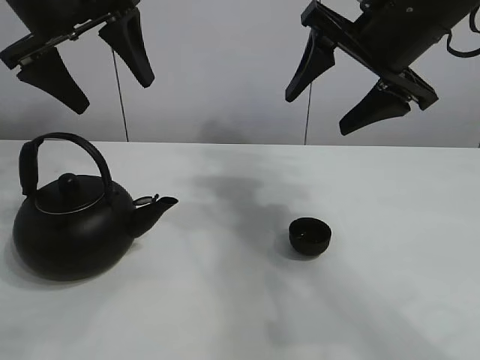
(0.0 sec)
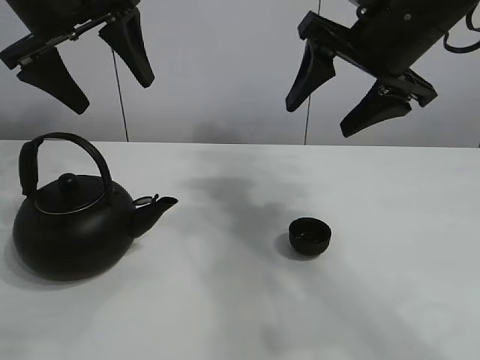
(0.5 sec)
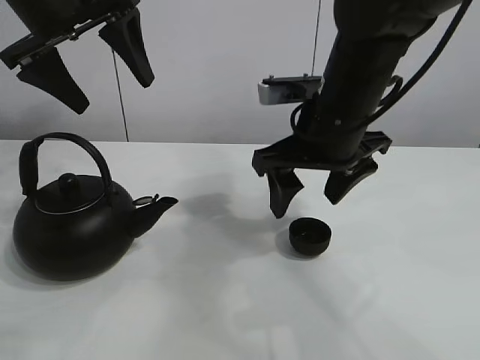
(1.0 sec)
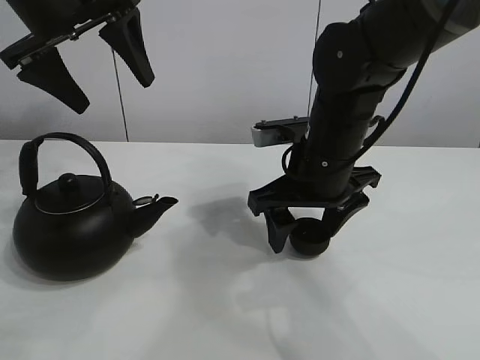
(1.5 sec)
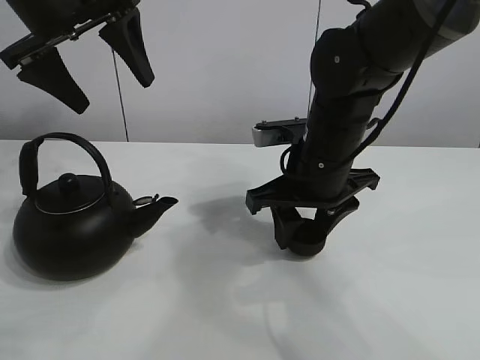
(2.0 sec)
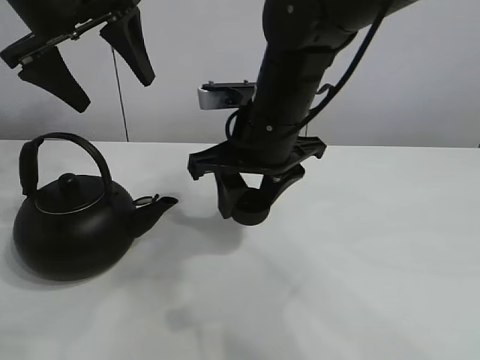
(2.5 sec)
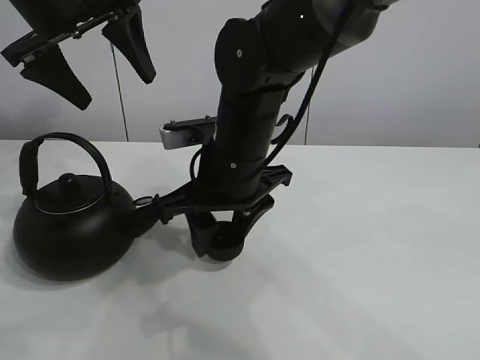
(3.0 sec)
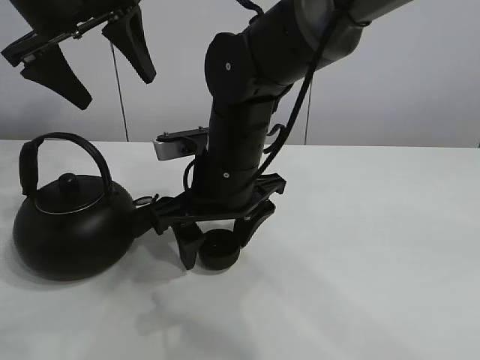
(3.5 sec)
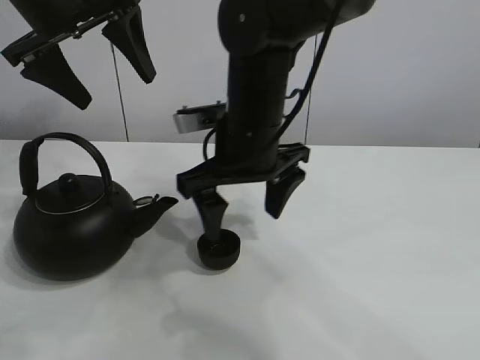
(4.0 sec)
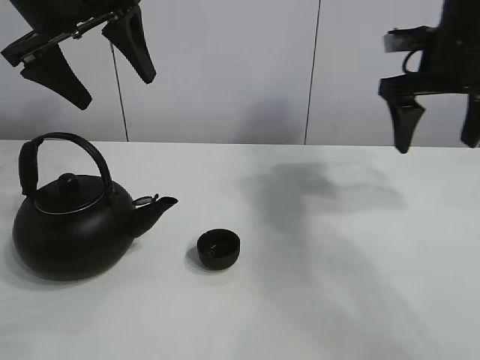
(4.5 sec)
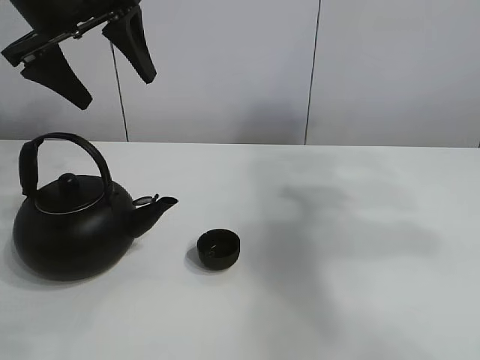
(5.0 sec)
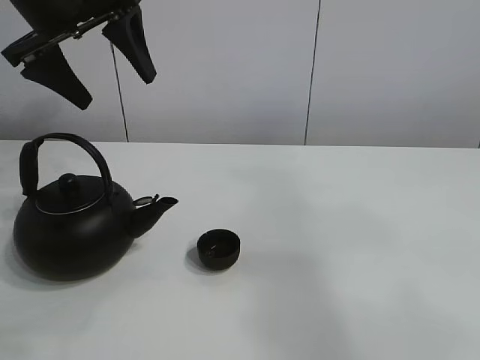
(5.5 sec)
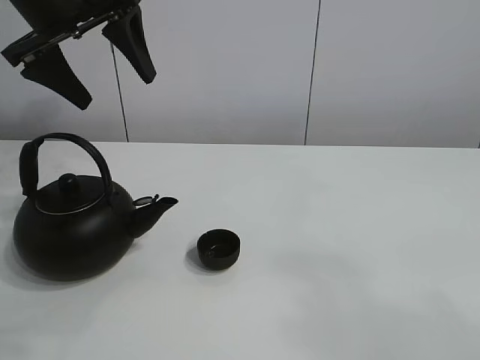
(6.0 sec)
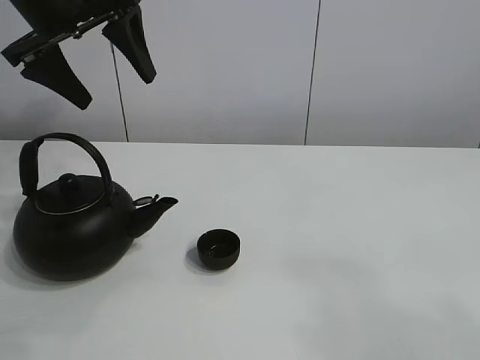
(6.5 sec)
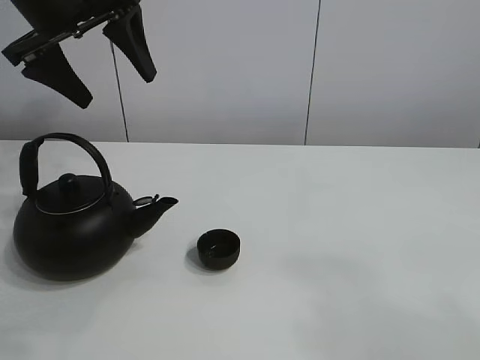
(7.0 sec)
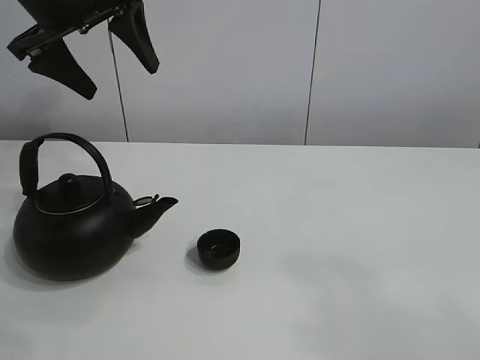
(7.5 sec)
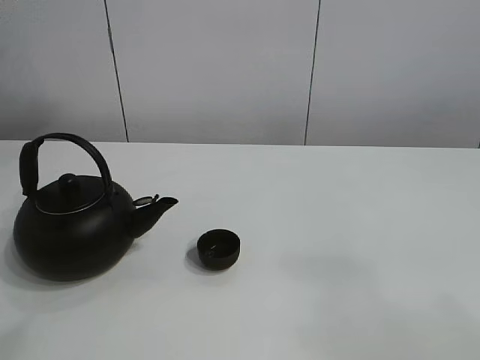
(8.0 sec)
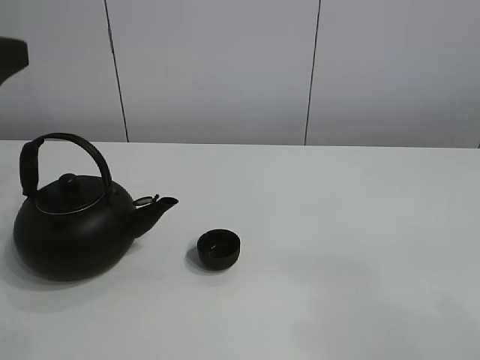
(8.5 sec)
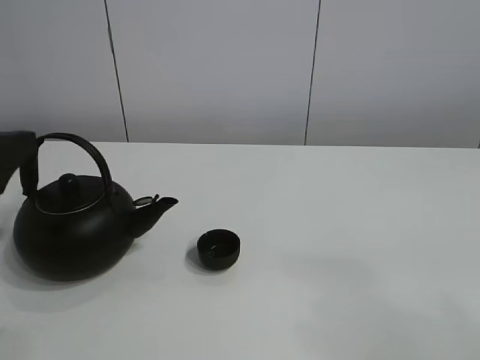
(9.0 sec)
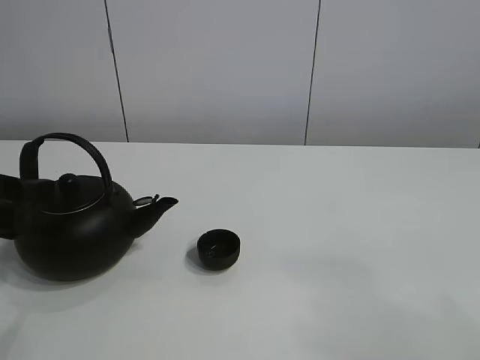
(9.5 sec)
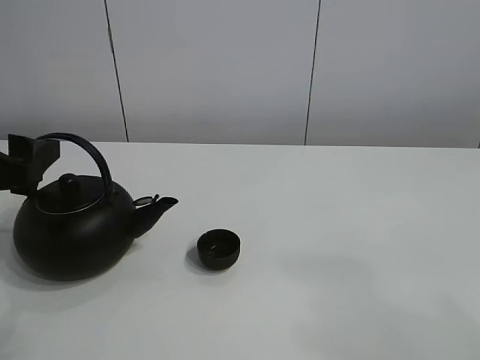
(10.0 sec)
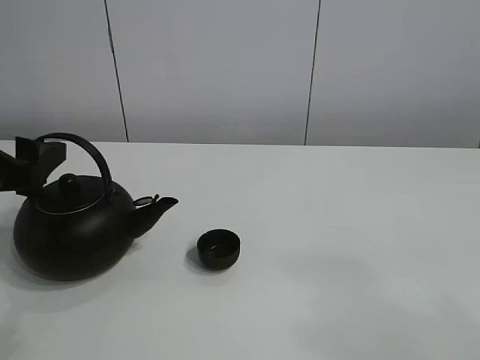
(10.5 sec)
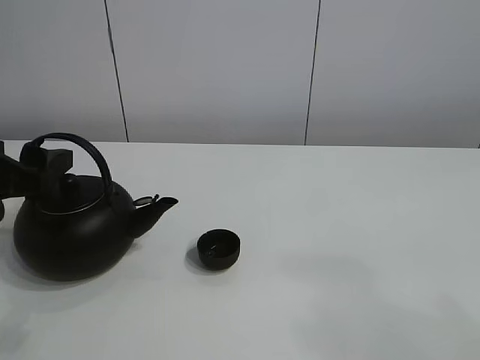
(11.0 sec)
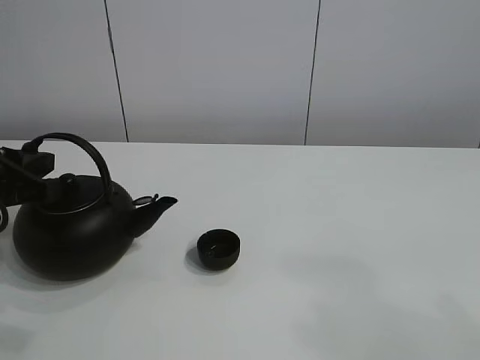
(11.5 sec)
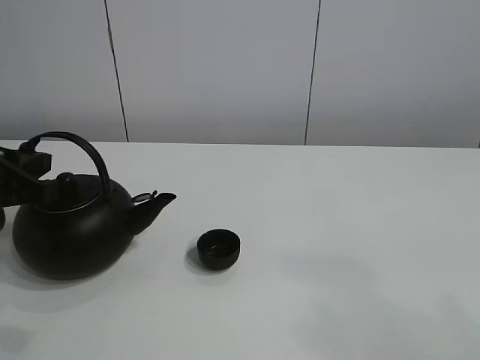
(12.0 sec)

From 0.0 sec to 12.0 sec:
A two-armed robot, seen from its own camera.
Task of the whole recording: pour tea into the teacup.
Step, from 0.0 sec to 2.0 sec: Pick up the teacup with the right gripper.
Step, from 2.5 sec to 3.5 sec: Place the teacup in the center of view with the right gripper.
From 2.0 sec to 4.0 sec: The right gripper goes about 5 cm to the left, and opens.
From 4.0 sec to 6.0 sec: The right gripper shifts approximately 50 cm backward and to the right.
From 6.0 sec to 8.0 sec: The left gripper travels upward and backward by some 10 cm.
From 8.0 sec to 10.0 sec: The left gripper heads downward, covering approximately 25 cm.
From 10.0 sec to 12.0 sec: The left gripper closes its fingers.

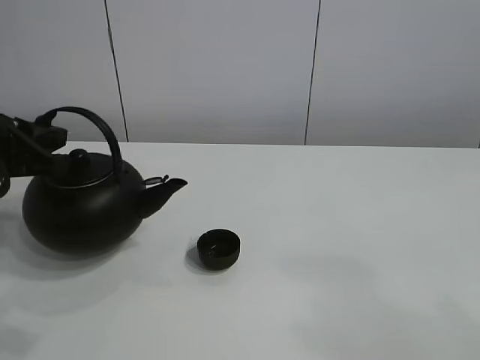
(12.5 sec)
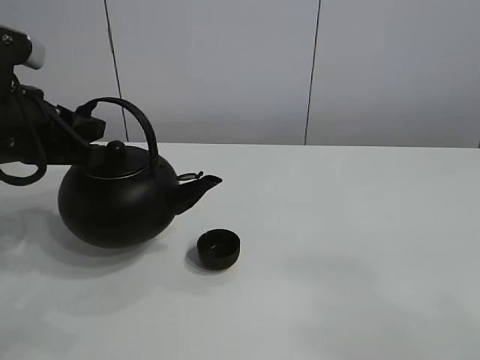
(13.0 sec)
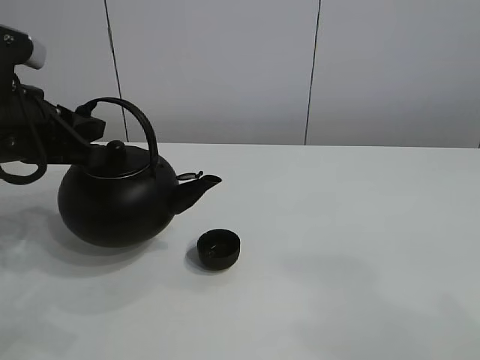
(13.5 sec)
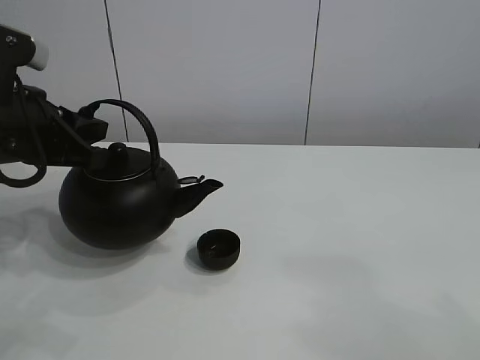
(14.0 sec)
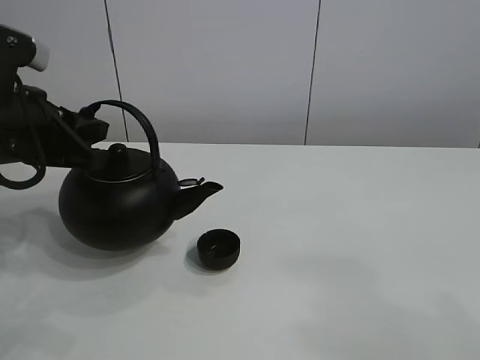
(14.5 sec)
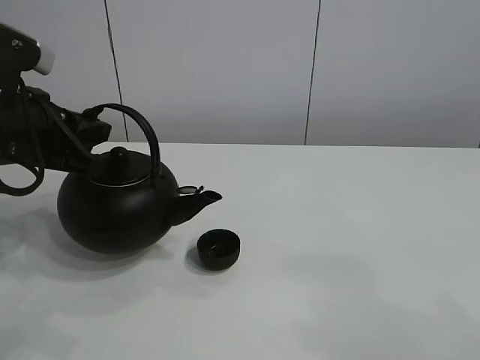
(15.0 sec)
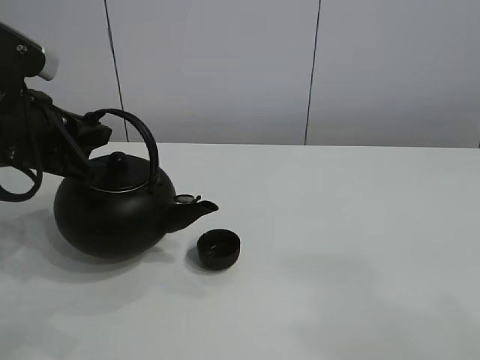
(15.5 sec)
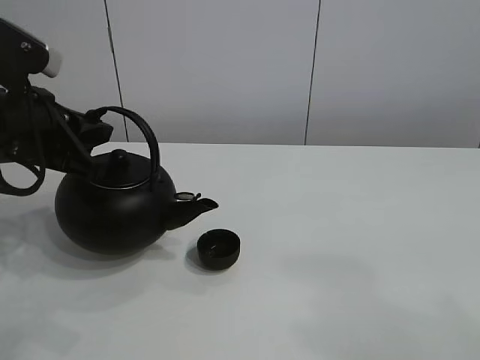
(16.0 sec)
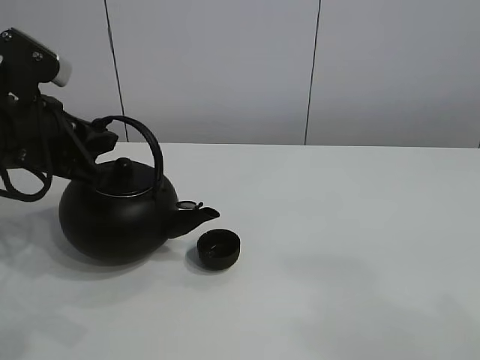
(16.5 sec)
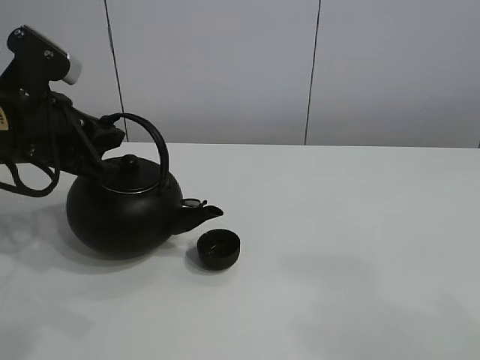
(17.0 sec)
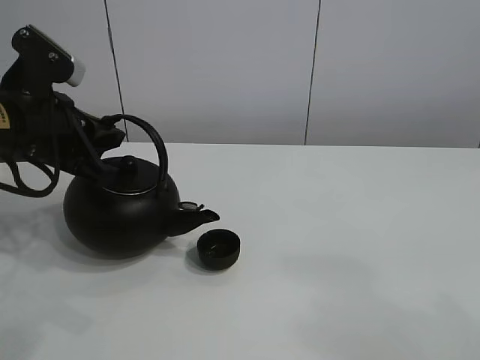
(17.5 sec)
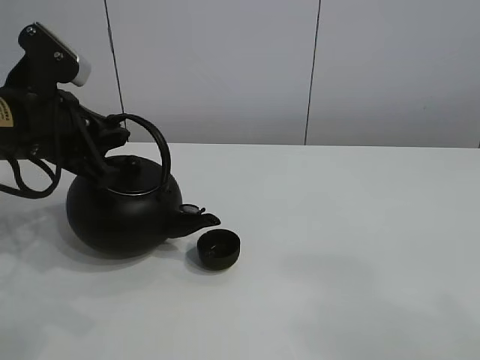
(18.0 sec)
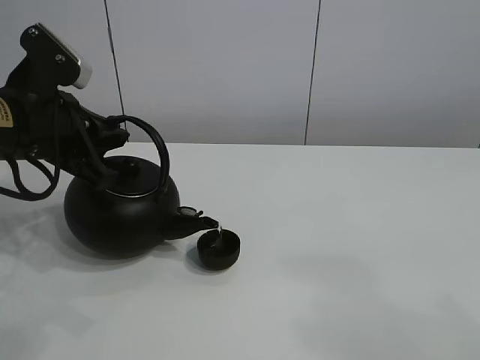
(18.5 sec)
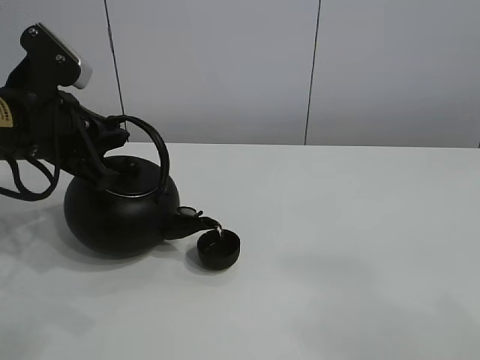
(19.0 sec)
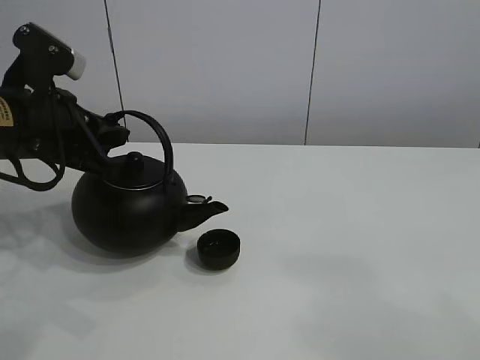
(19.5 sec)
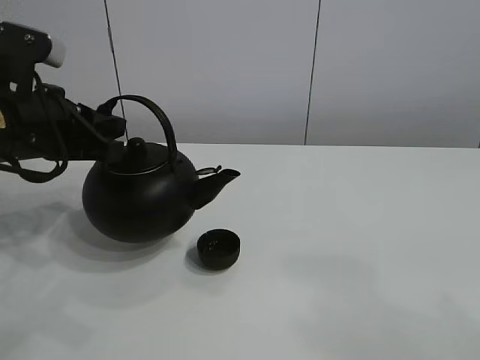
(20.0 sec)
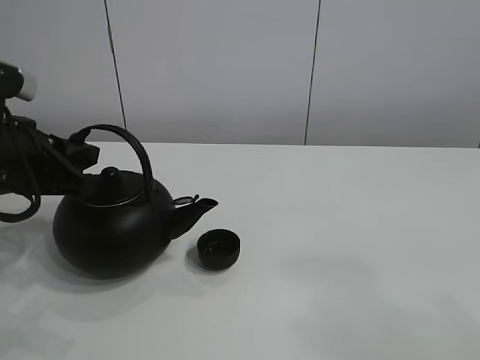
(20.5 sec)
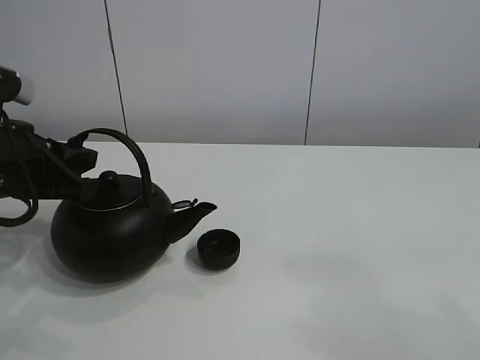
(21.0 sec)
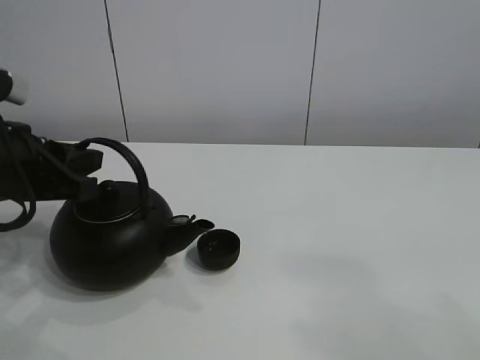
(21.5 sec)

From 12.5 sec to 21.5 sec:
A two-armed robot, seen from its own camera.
Task of the whole recording: pour tea into the teacup.
Step, from 12.5 sec to 19.0 sec: Pour tea into the teacup with the left gripper.
From 12.5 sec to 17.0 sec: The grippers make only small movements.
From 17.0 sec to 19.5 sec: The grippers stay close to where they were, moving slightly.
From 19.5 sec to 21.5 sec: The left gripper shifts by roughly 5 cm.

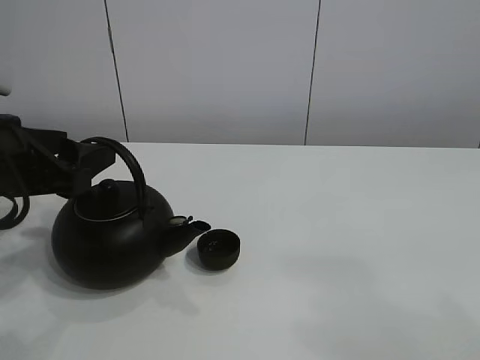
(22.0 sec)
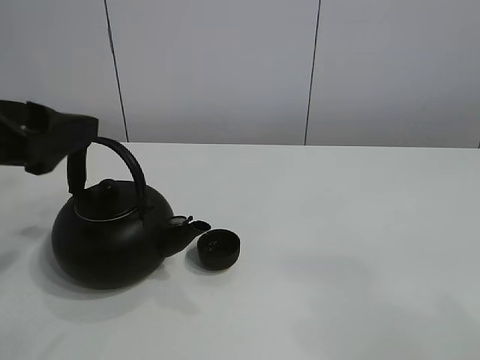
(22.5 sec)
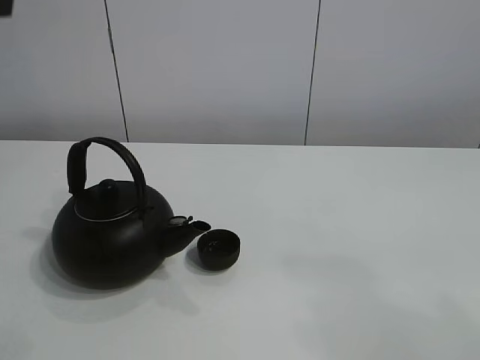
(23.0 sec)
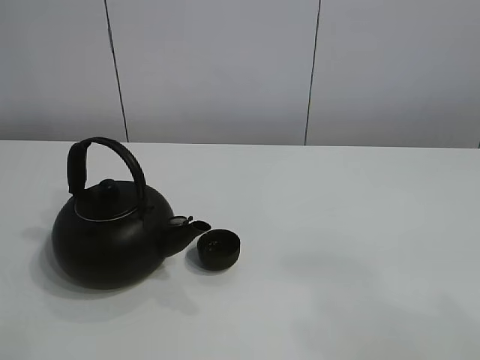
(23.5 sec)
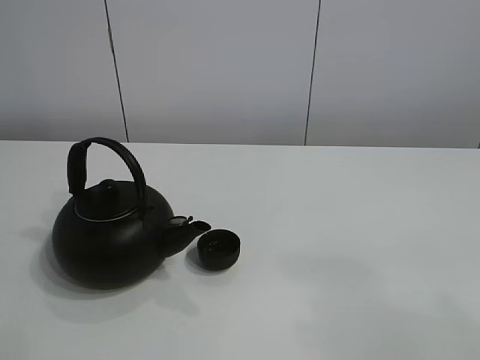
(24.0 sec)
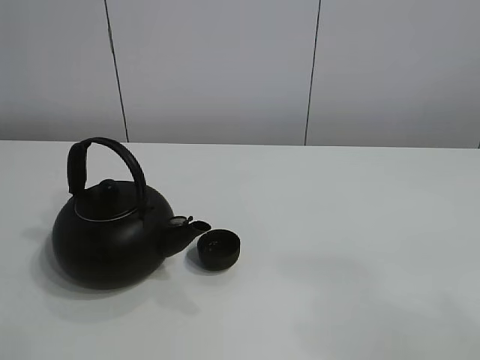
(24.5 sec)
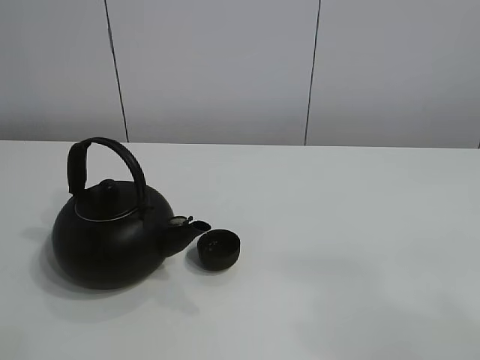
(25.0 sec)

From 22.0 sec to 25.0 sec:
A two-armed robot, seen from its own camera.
Task of the whole recording: pour tea into the teacup.
From 22.0 sec to 23.5 sec: The left gripper heads upward, covering about 30 cm.
